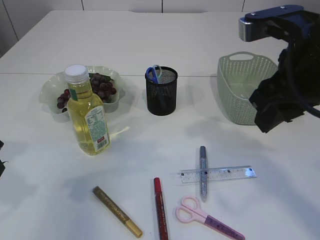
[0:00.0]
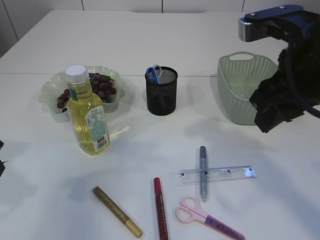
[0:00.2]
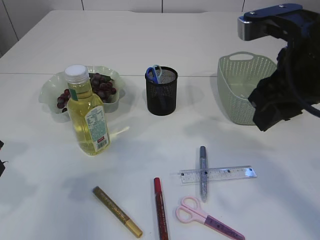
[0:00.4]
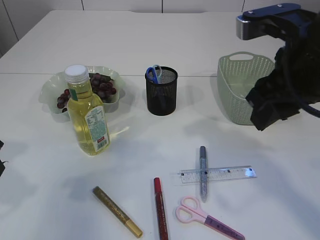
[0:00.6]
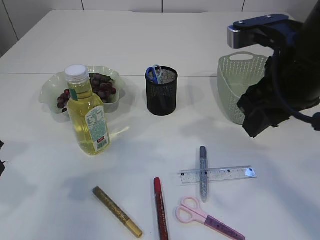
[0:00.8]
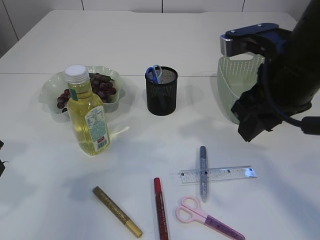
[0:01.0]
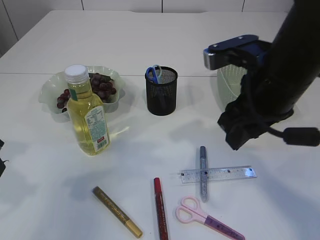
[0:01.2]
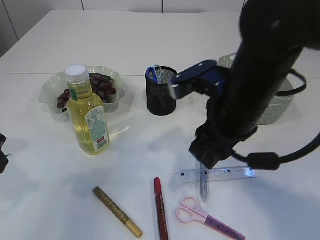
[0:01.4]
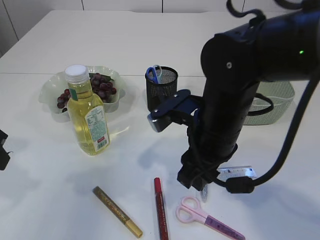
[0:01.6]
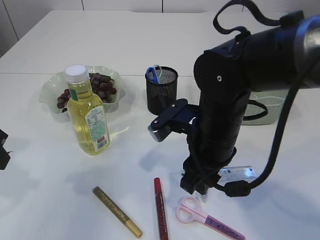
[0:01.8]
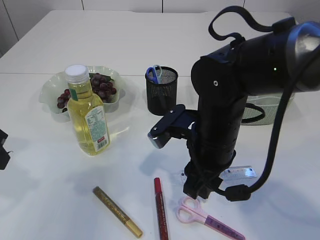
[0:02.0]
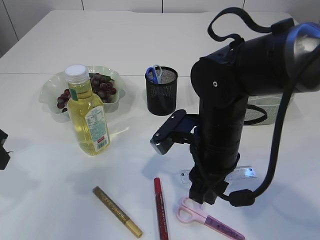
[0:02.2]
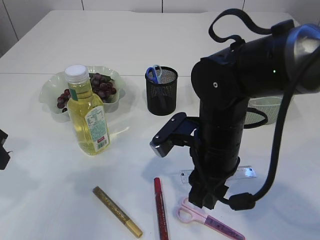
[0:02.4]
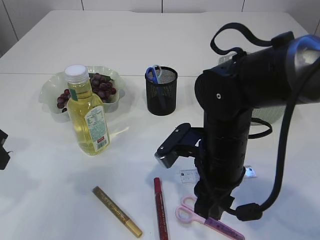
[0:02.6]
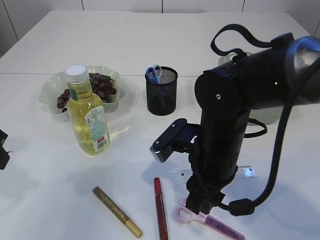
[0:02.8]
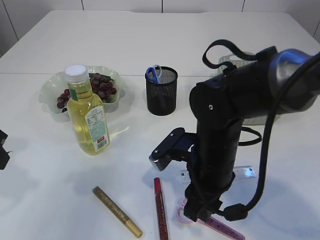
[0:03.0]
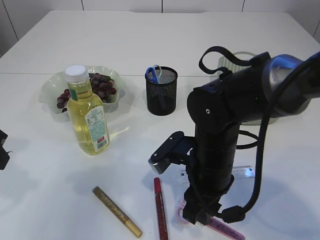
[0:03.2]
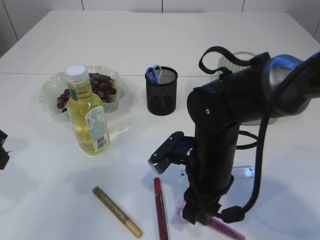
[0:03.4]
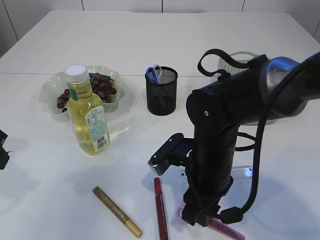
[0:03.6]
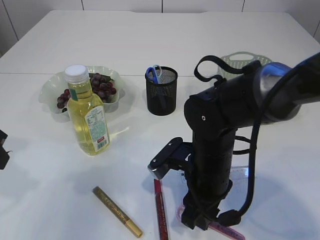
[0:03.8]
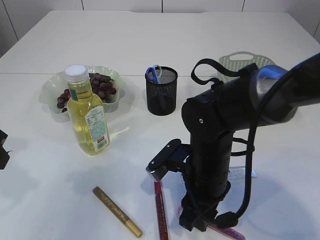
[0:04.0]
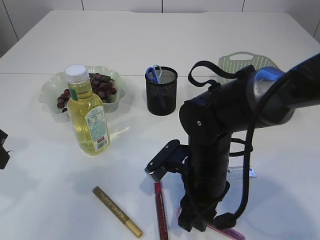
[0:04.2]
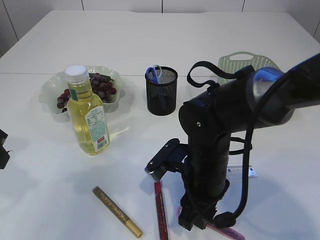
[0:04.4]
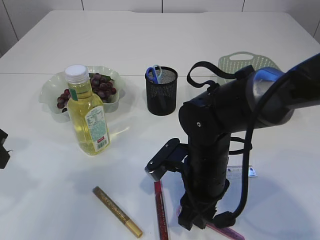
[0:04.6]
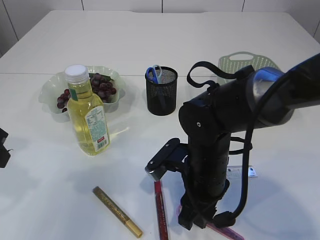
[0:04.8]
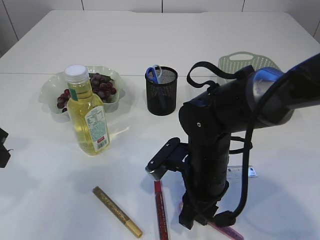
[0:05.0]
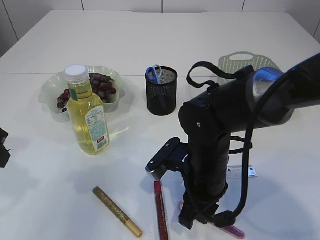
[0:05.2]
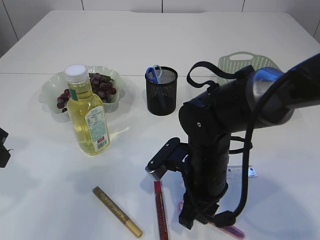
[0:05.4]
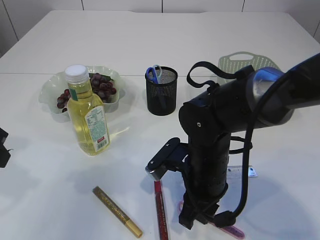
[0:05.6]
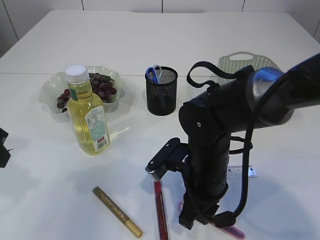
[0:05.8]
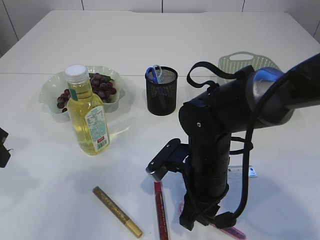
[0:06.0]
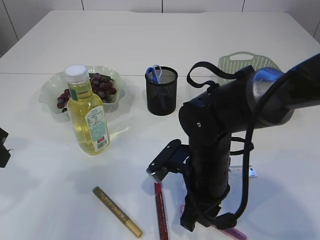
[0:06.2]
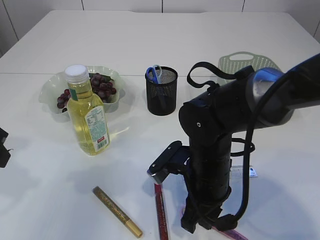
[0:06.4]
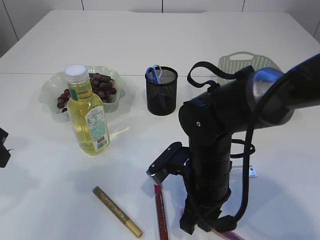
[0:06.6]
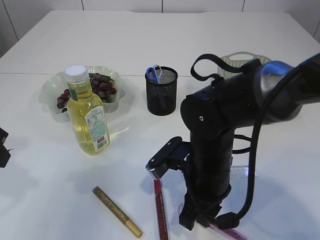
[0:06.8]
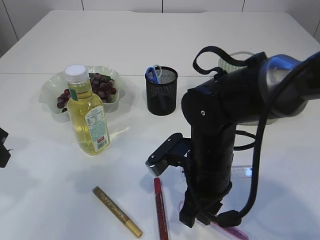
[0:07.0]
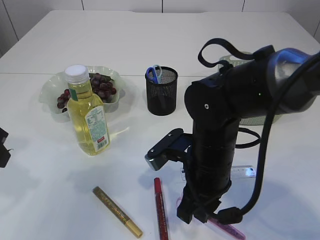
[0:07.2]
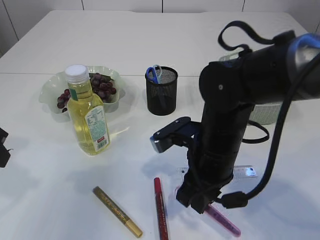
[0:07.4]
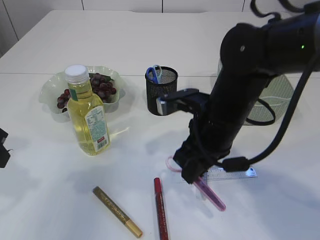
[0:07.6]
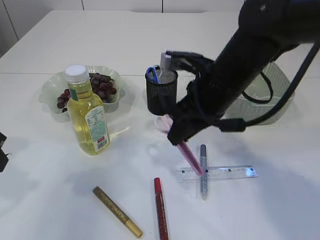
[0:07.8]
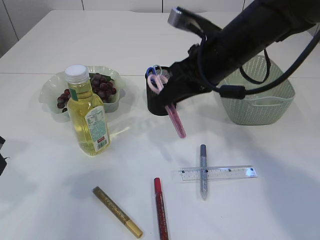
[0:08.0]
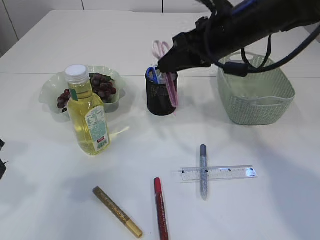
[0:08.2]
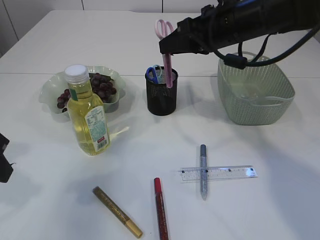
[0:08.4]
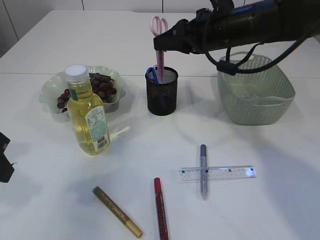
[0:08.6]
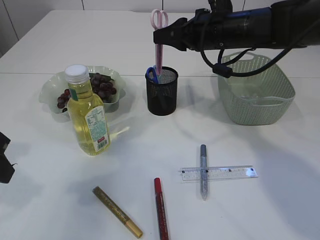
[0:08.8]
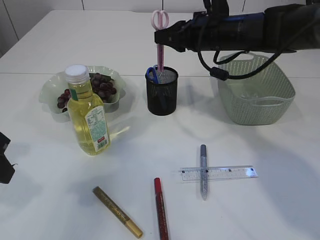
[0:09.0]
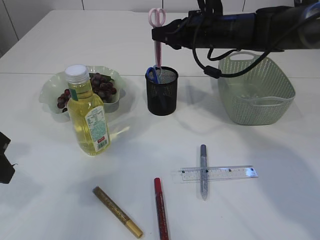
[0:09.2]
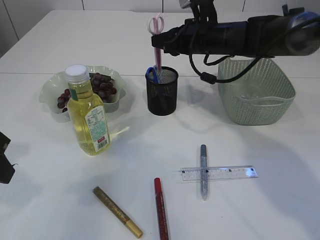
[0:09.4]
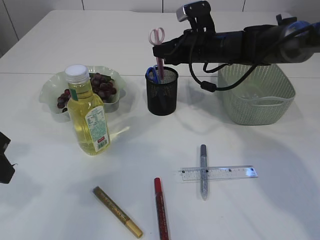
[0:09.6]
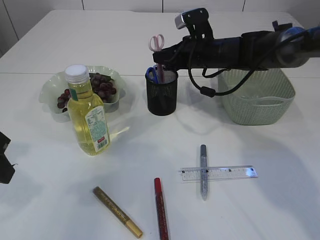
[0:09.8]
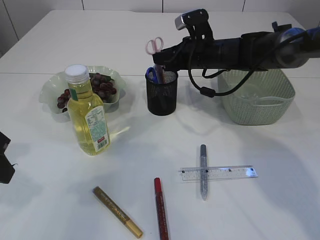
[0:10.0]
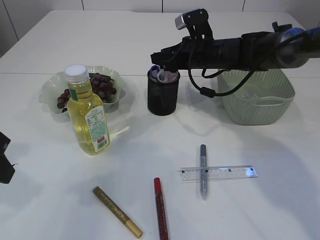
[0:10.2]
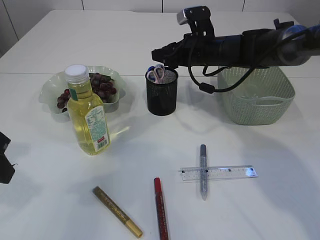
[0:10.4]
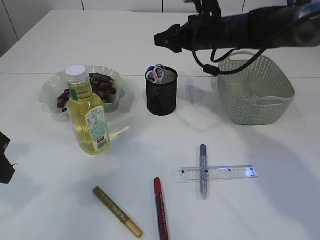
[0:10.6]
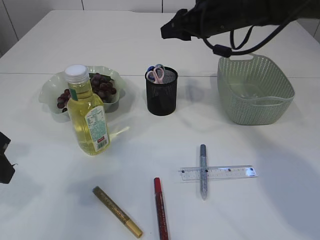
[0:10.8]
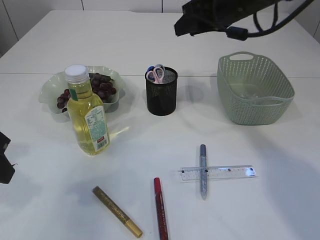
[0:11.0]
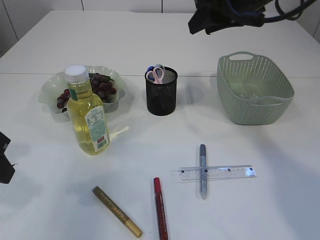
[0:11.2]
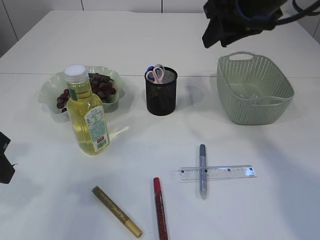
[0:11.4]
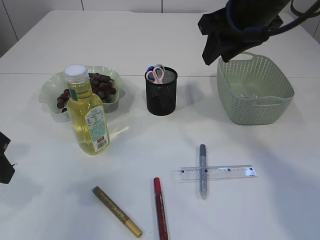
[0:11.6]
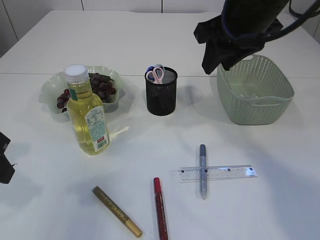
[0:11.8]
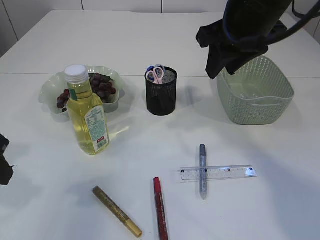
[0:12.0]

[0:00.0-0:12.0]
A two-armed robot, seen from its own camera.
Step, 0:00.0 to 0:07.6: pick up the pink scissors.
Step, 0:07.8 to 0:10.6: Place the pink scissors into the pen holder.
0:00.0 to 0:01.6: The right gripper shifts about 15 cm downward and to the left.
0:01.6 to 0:03.0: The right gripper goes approximately 5 cm downward.
0:03.0 to 0:04.4: There are only small adjustments of the grippers.
0:04.4 to 0:06.0: The two grippers keep their place.
0:06.0 to 0:07.6: The right gripper is displaced upward by roughly 5 cm.
0:07.6 to 0:09.0: The right gripper travels forward and upward by some 15 cm.
0:09.0 to 0:10.4: The right gripper heads downward, covering approximately 5 cm.
0:10.4 to 0:12.0: The right gripper travels backward and upward by some 20 cm.

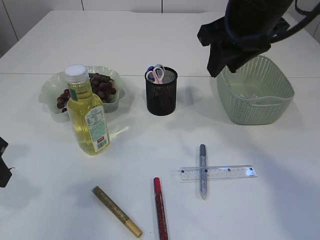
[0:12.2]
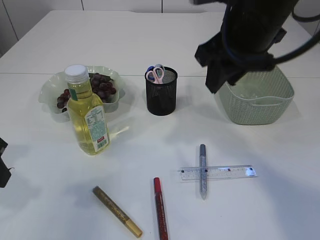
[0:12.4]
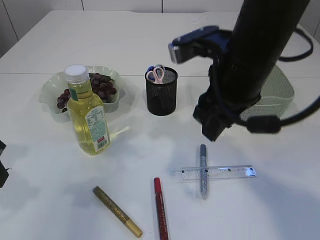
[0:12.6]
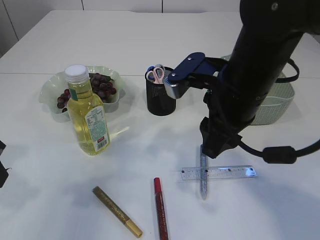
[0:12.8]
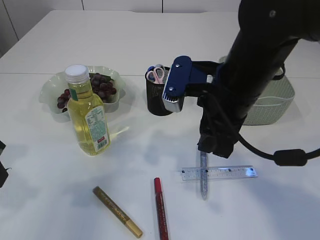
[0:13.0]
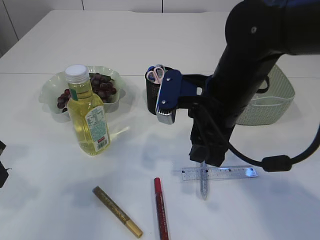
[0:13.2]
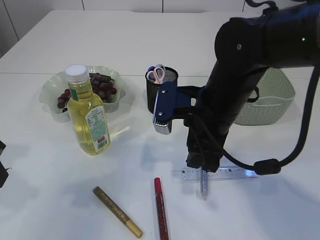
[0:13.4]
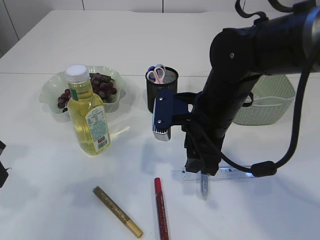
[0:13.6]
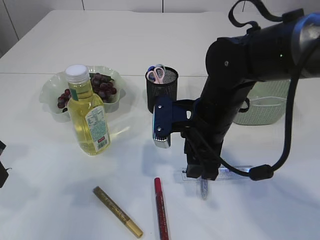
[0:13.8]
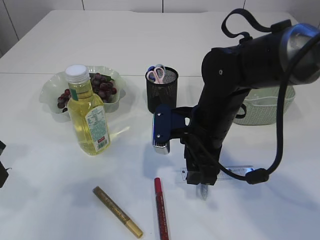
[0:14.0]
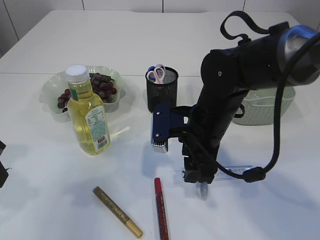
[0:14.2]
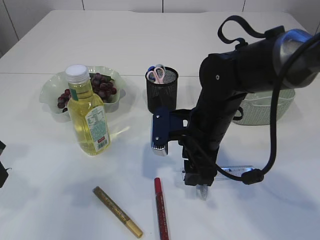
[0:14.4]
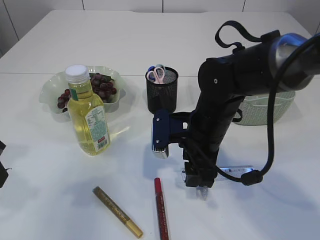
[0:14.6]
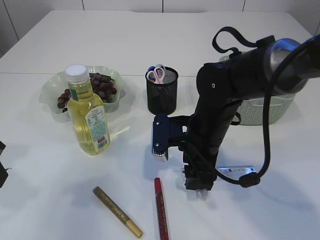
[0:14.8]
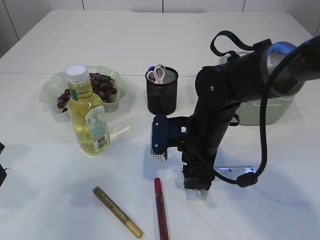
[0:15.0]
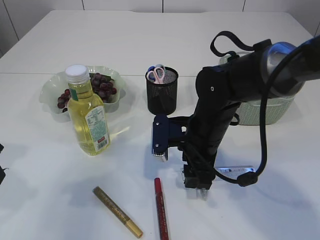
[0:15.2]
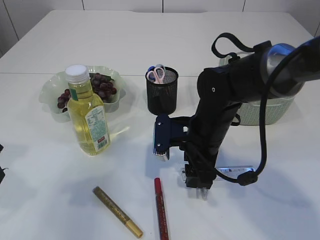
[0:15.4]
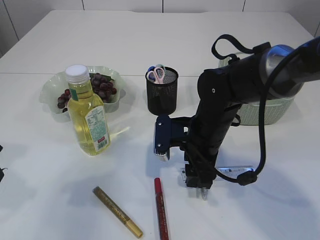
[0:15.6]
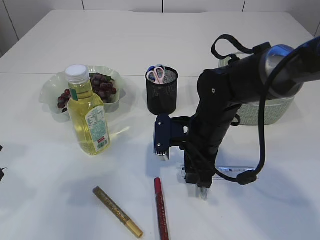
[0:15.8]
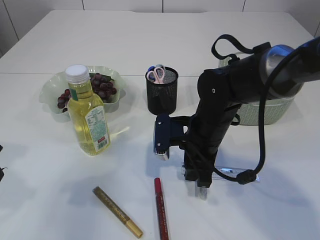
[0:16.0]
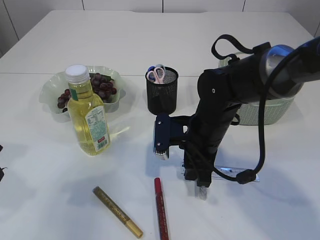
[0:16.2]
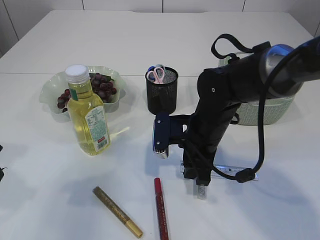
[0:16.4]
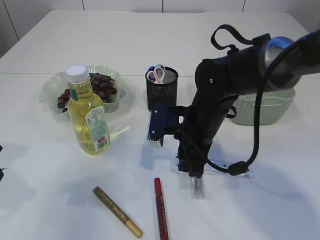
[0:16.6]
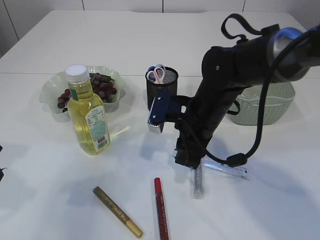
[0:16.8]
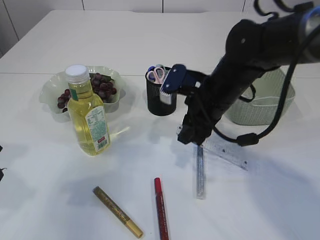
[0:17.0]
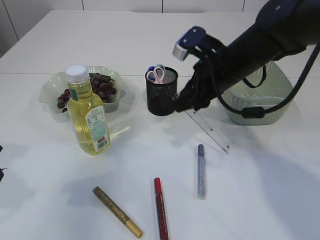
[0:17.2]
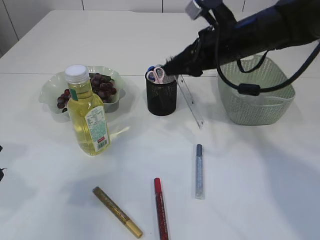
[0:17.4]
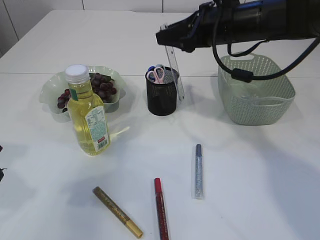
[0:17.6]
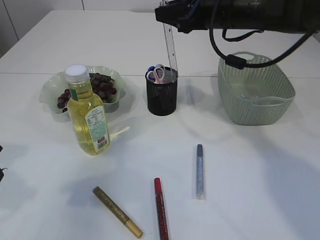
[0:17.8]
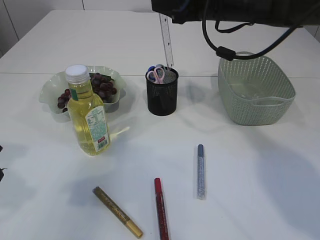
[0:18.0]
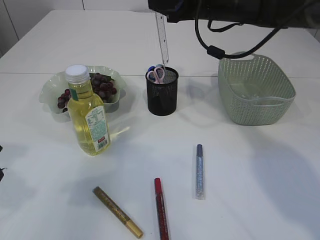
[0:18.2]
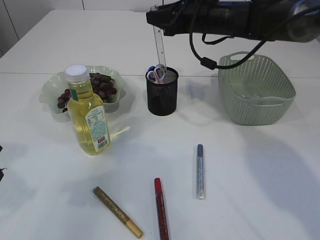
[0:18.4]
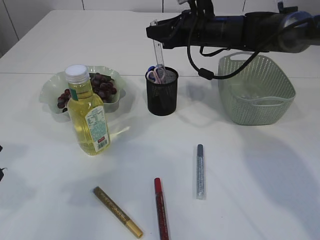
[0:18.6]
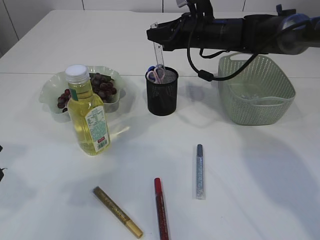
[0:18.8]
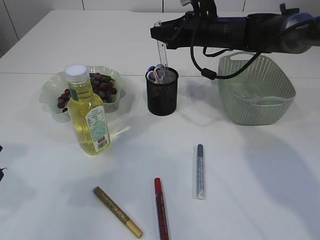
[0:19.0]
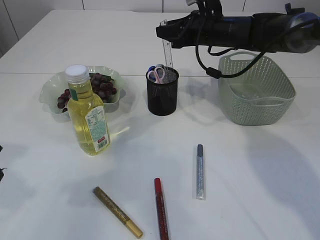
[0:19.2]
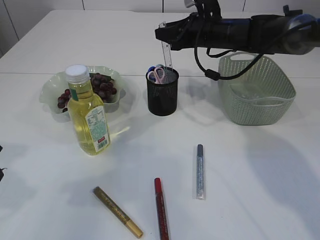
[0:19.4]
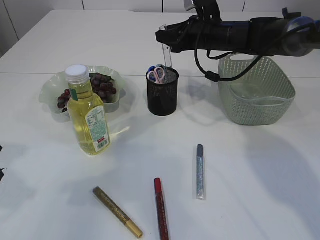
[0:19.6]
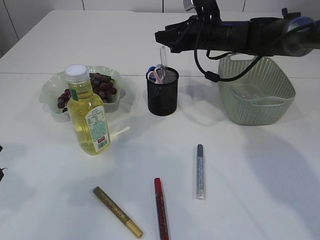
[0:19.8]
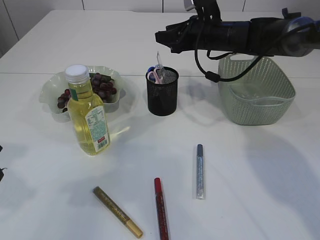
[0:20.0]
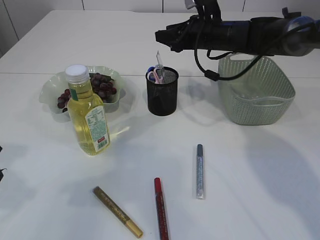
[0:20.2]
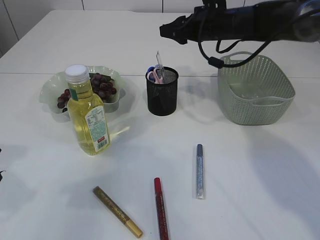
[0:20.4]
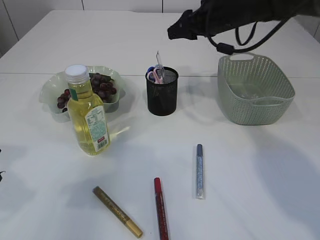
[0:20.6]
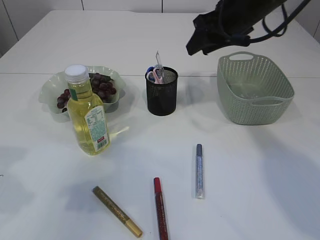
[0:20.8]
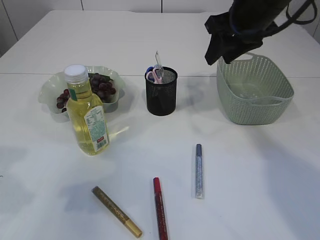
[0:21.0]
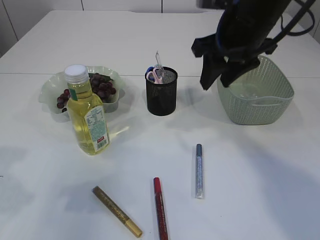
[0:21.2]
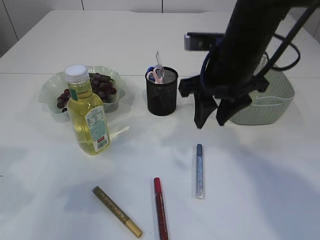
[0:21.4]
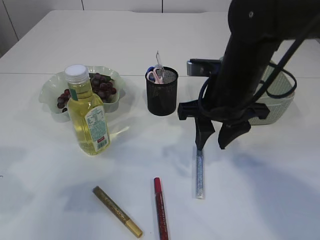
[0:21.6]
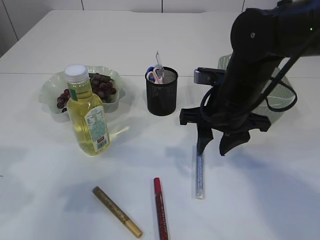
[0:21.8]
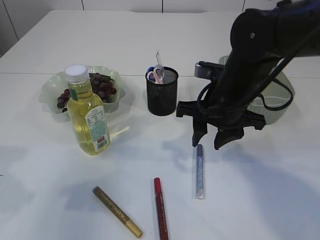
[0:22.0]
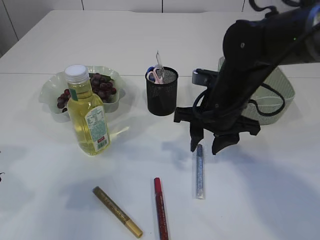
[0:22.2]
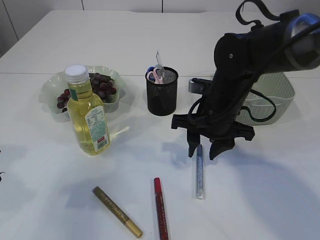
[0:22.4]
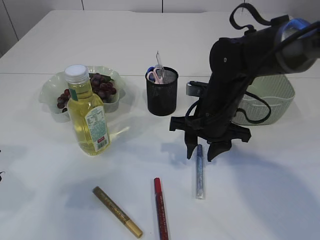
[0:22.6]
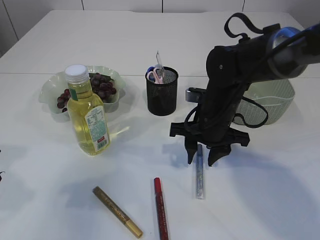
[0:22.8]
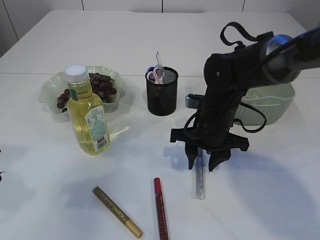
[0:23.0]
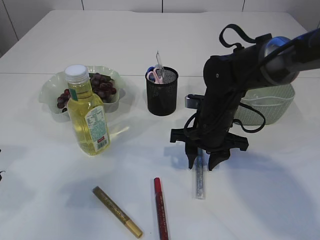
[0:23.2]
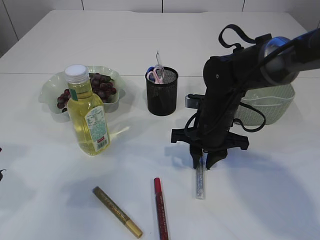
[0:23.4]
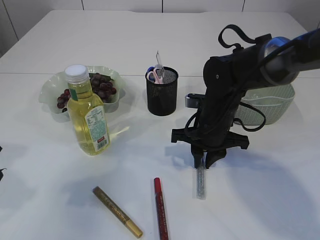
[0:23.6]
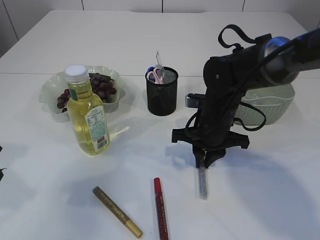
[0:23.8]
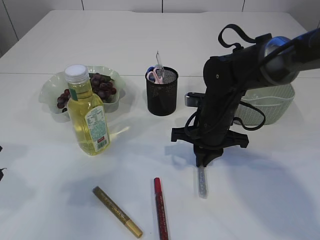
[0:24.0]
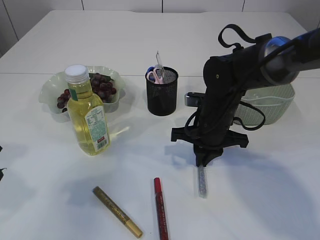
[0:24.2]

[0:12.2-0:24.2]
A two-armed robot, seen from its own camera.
Step, 0:12.2 to 0:17.0: pick up the ruler.
Step, 0:17.2 to 0:20.4: Place the ruler into the pen holder.
0:12.2 to 0:13.8: The right gripper goes about 15 cm downward.
0:13.8 to 0:15.2: There are only small adjustments of the grippers.
0:15.2 to 0:16.6: The right gripper closes up.
0:16.6 to 0:18.2: The right gripper travels upward and forward by roughly 20 cm.
0:18.2 to 0:19.8: The right gripper goes about 5 cm downward.
0:19.8 to 0:21.2: The right gripper heads backward and upward, covering about 15 cm.
0:21.2 to 0:22.6: The right gripper shifts roughly 15 cm downward.
0:22.6 to 0:24.2: The right gripper closes.
